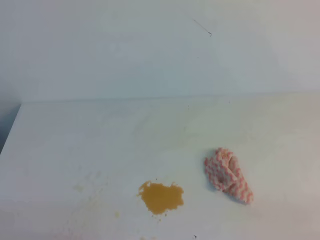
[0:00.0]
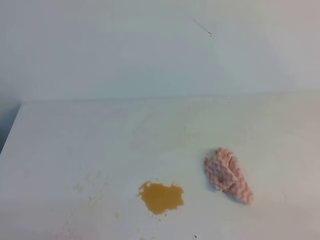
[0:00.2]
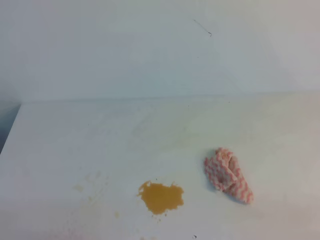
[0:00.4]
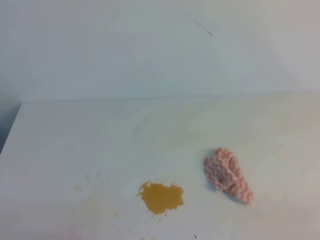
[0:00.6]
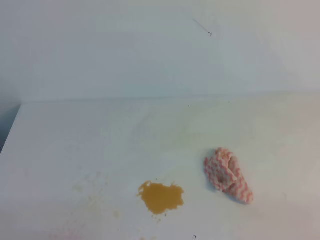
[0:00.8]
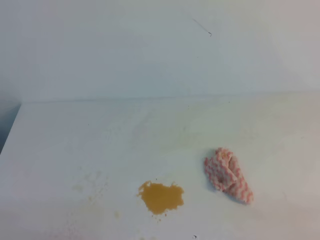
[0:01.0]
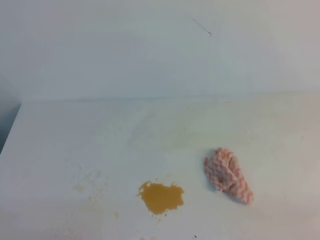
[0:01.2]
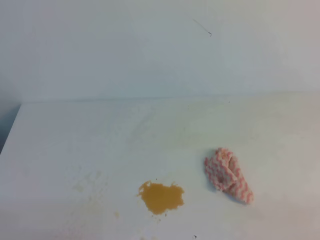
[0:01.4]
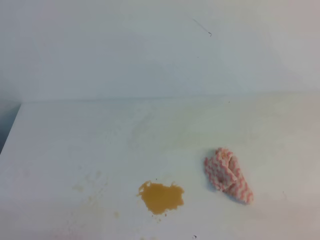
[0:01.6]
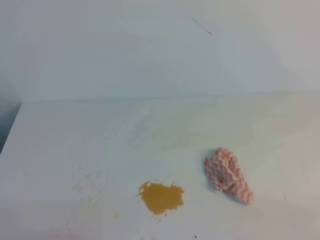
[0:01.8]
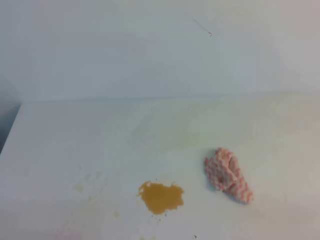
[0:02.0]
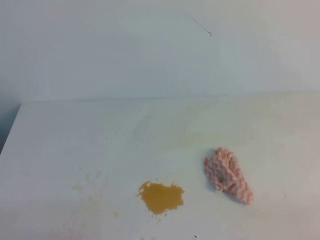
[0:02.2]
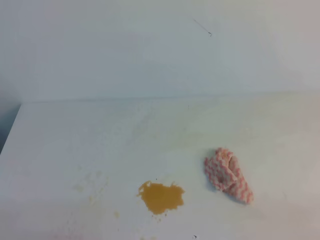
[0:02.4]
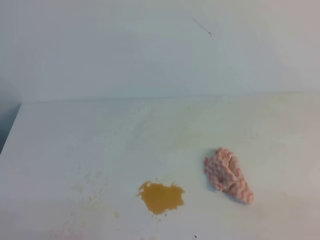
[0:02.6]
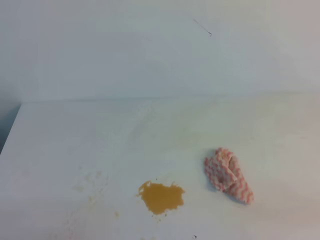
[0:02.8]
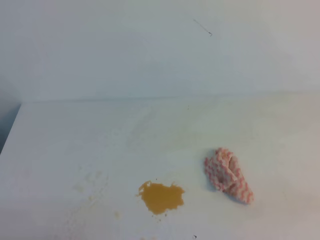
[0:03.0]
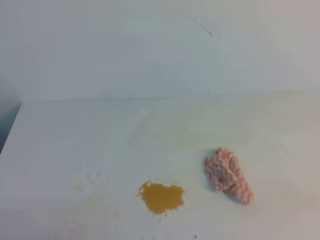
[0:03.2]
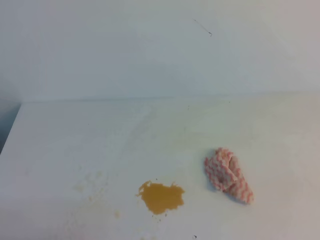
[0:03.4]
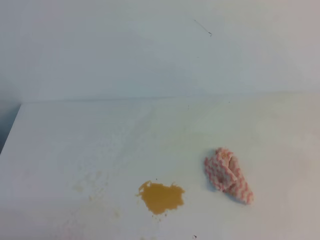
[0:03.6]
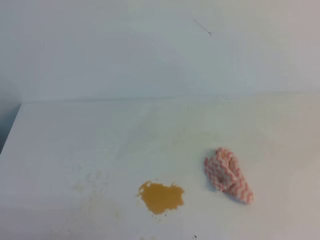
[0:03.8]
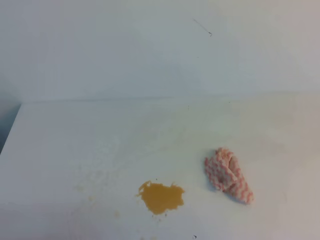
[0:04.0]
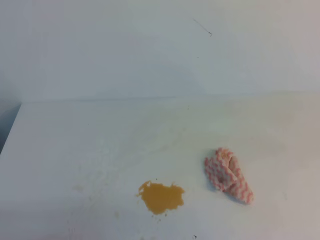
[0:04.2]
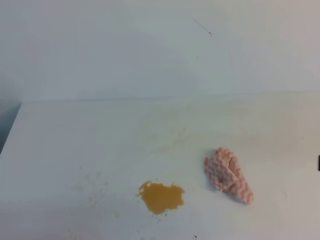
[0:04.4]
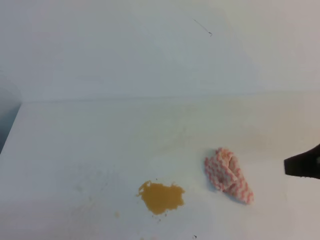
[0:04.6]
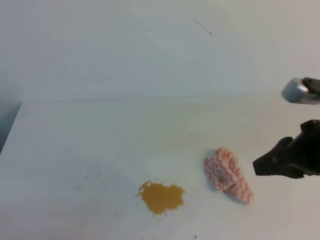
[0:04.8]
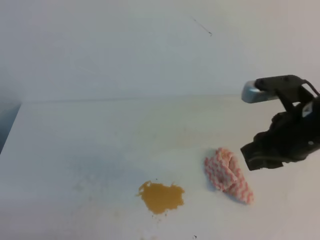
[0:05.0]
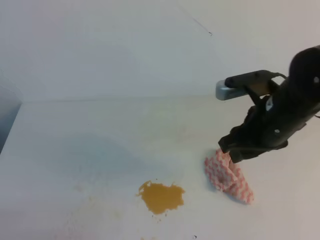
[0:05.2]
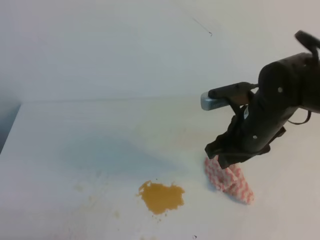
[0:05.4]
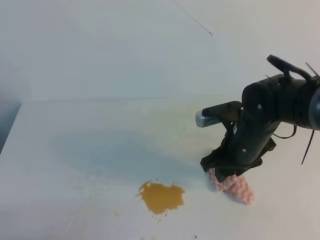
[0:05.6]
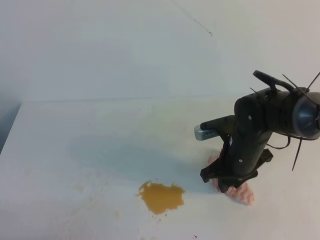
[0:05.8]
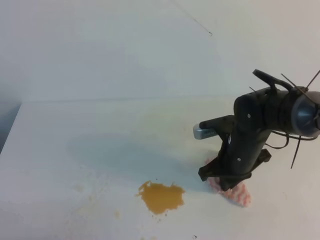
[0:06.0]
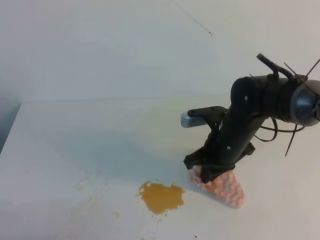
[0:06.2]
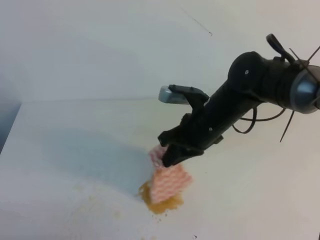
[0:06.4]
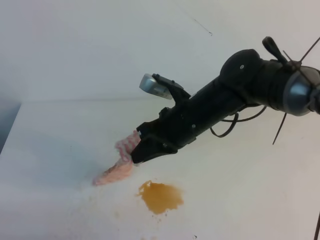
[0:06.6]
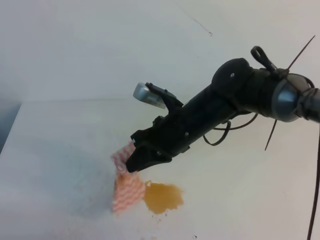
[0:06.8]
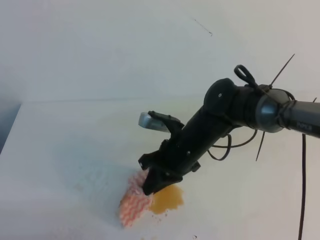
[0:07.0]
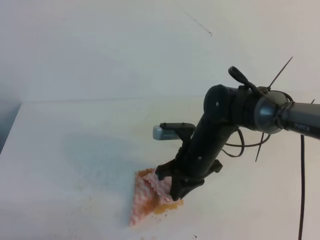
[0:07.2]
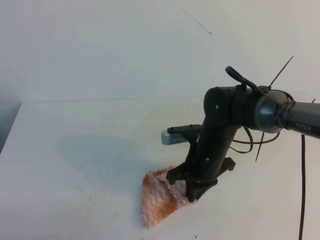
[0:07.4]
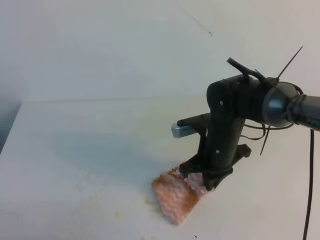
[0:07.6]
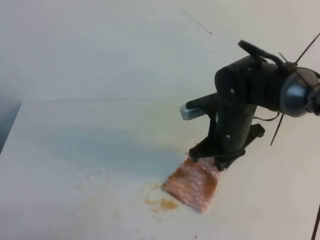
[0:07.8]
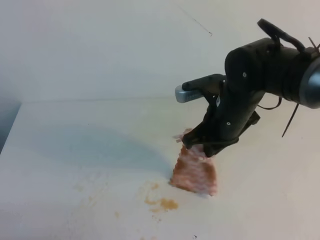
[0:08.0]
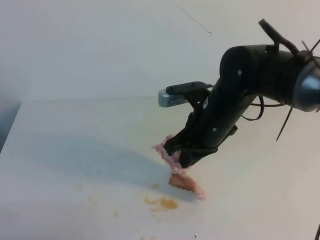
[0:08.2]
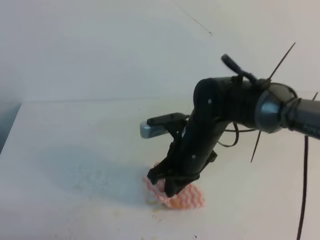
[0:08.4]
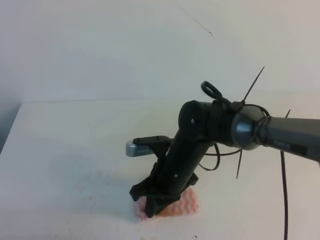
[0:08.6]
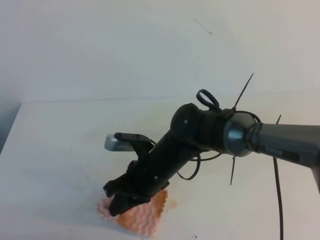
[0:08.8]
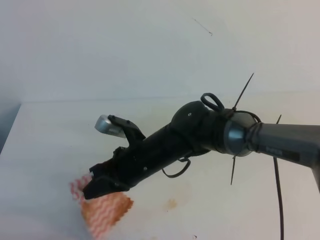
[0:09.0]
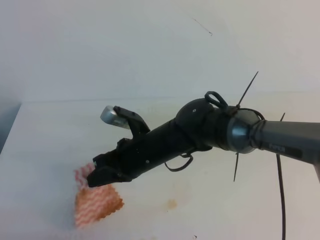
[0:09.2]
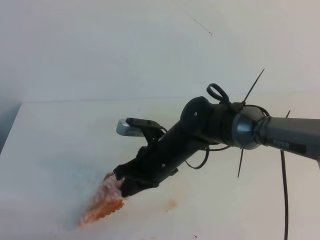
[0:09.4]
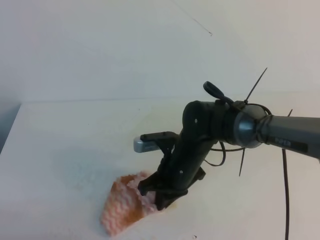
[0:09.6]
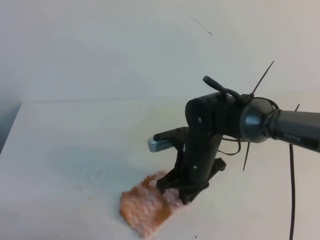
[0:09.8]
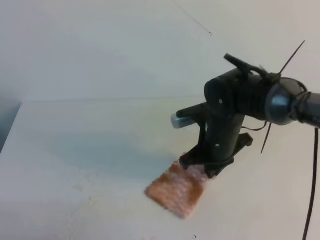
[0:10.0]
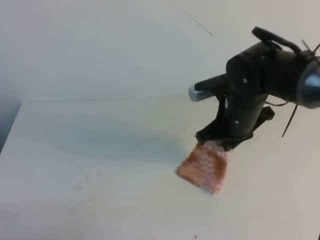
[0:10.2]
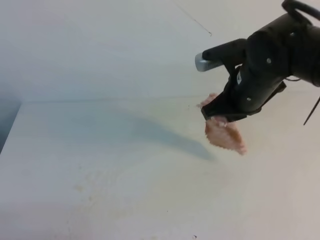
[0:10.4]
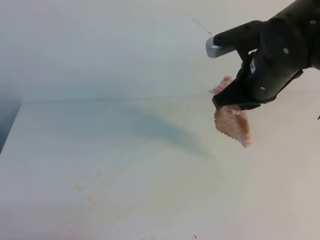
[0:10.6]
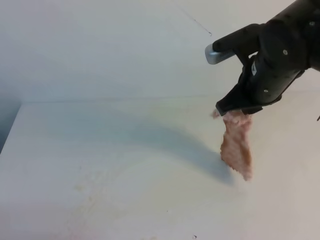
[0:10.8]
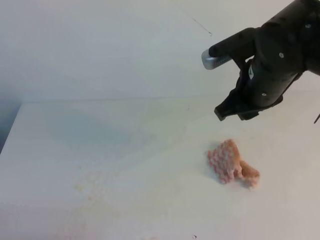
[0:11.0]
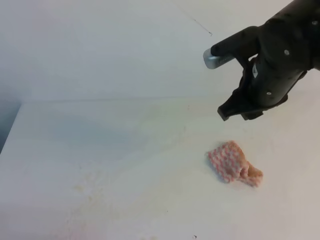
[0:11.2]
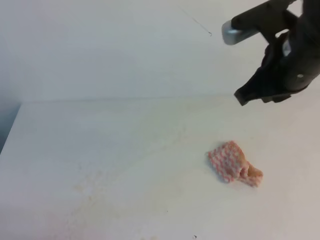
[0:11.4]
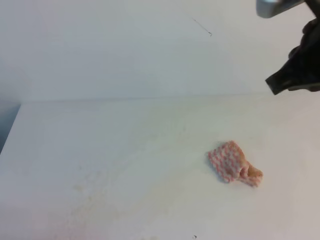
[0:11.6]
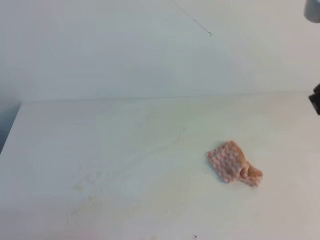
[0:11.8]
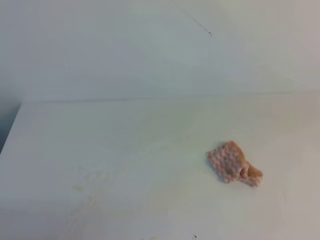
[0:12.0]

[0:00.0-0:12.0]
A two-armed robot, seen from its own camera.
0:00.0 to 0:01.6: Both grippers stay put.
0:04.4 to 0:06.0: The right gripper moves forward, to the left and downward, some 30 cm, and opens, then closes once more.
0:07.6 to 0:09.0: The right gripper is displaced to the left by approximately 10 cm.
0:09.0 to 0:10.4: The right gripper goes some 20 cm to the right and upward.
0:10.4 to 0:12.0: The right gripper travels backward, upward and to the right by roughly 25 cm, and opens and closes again.

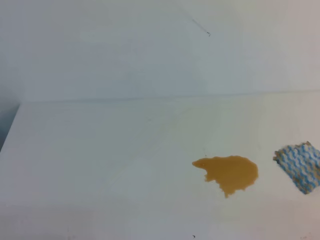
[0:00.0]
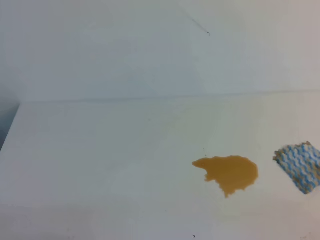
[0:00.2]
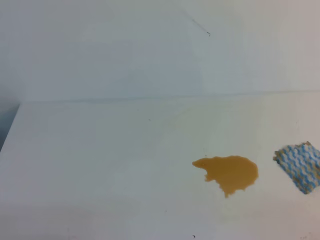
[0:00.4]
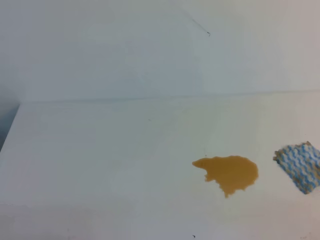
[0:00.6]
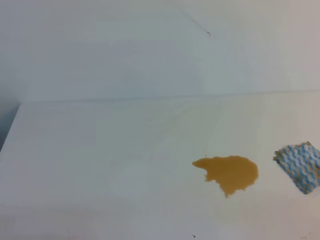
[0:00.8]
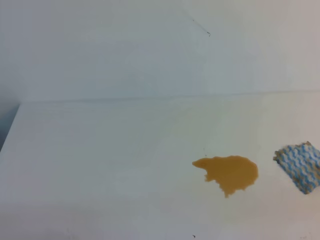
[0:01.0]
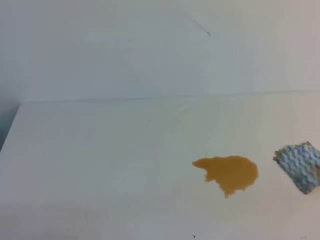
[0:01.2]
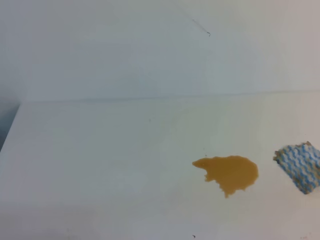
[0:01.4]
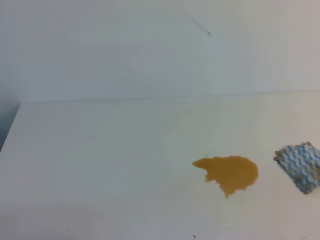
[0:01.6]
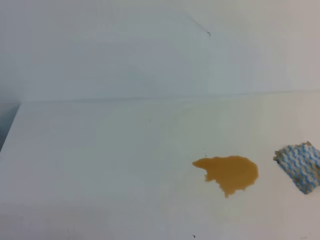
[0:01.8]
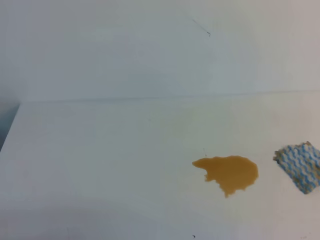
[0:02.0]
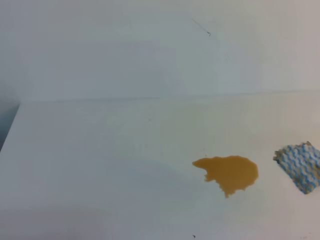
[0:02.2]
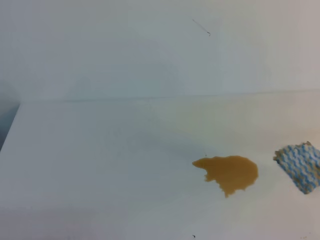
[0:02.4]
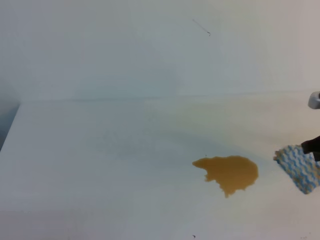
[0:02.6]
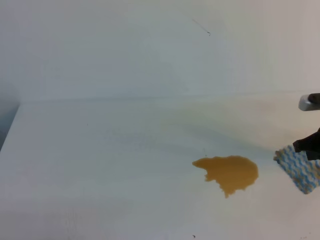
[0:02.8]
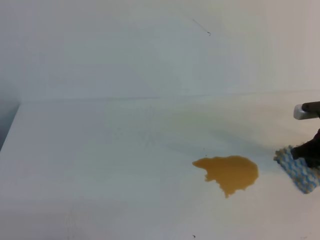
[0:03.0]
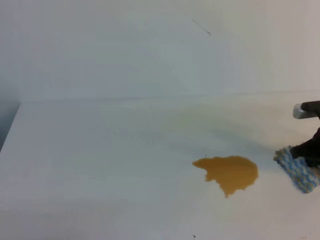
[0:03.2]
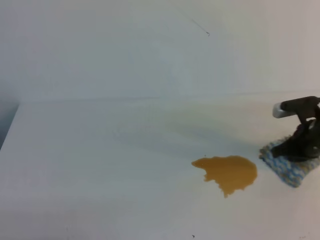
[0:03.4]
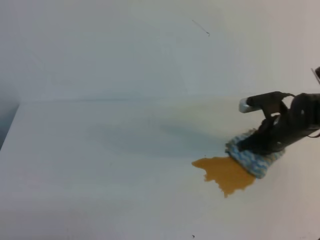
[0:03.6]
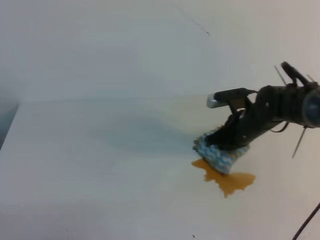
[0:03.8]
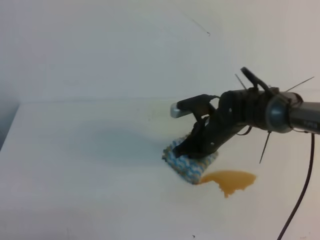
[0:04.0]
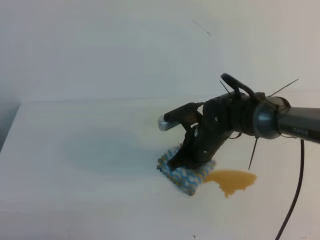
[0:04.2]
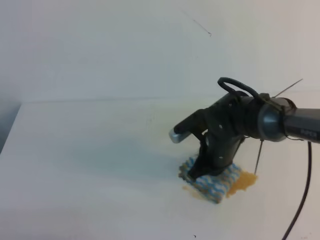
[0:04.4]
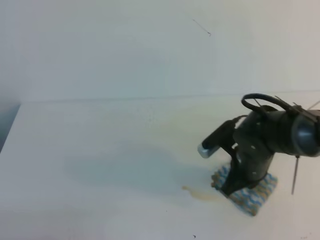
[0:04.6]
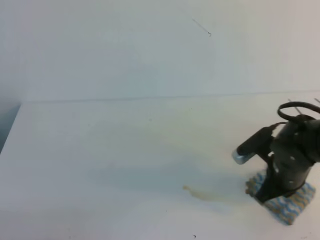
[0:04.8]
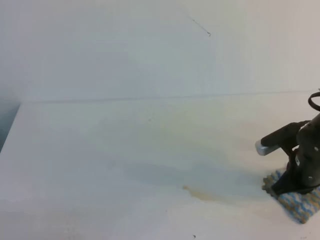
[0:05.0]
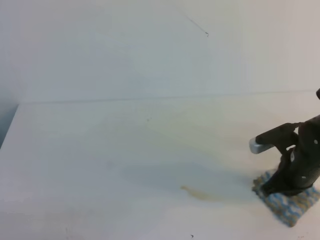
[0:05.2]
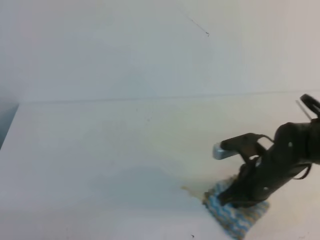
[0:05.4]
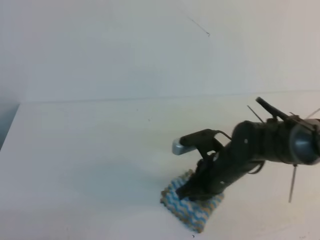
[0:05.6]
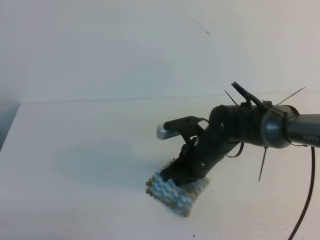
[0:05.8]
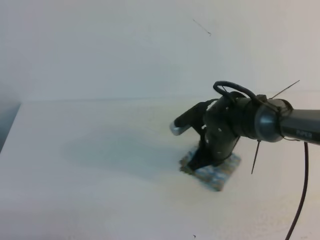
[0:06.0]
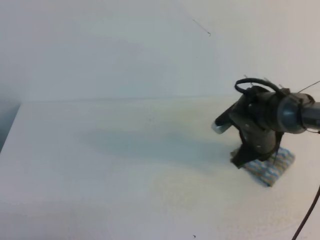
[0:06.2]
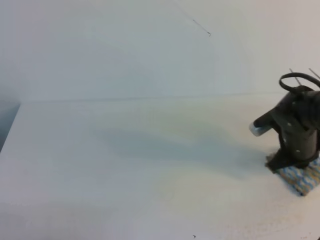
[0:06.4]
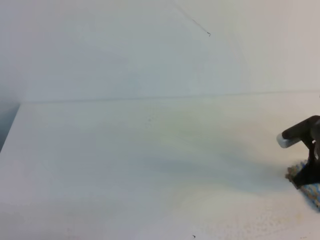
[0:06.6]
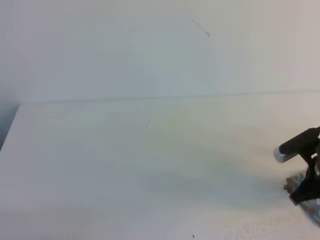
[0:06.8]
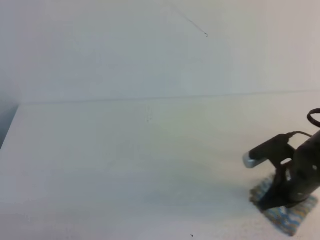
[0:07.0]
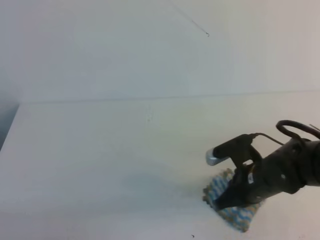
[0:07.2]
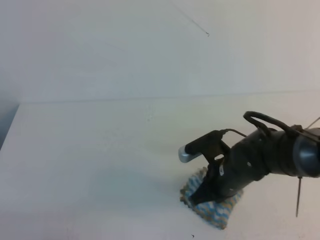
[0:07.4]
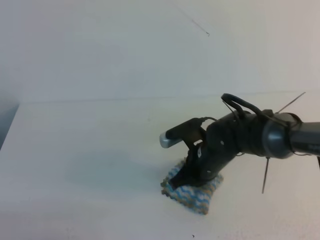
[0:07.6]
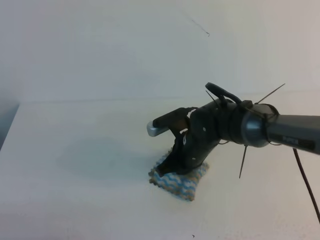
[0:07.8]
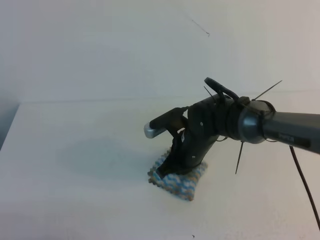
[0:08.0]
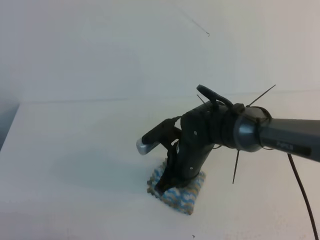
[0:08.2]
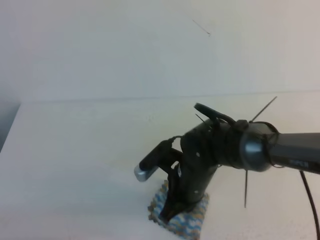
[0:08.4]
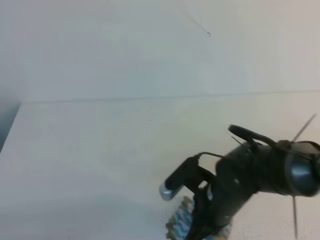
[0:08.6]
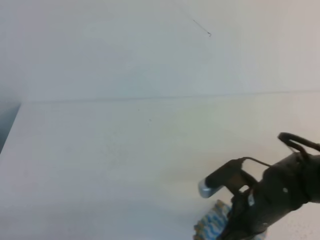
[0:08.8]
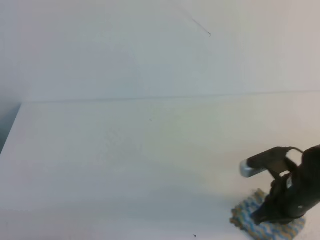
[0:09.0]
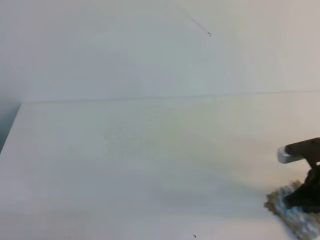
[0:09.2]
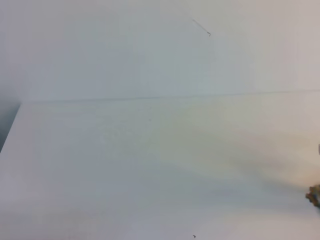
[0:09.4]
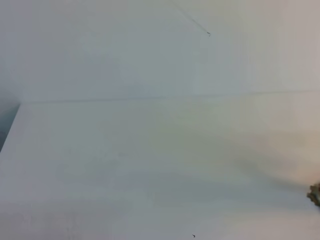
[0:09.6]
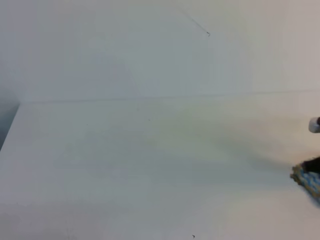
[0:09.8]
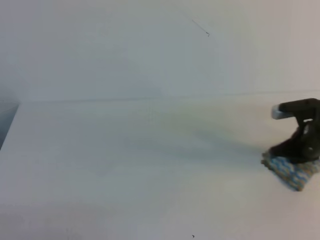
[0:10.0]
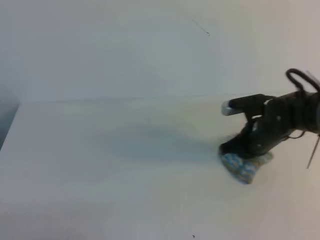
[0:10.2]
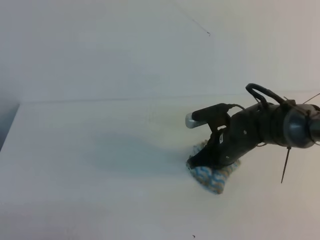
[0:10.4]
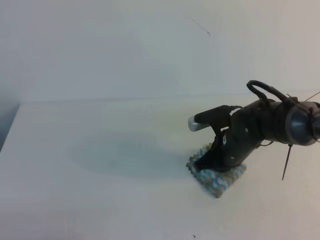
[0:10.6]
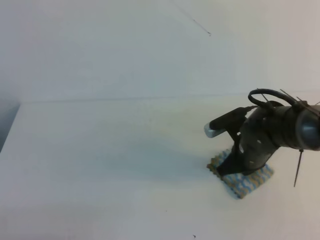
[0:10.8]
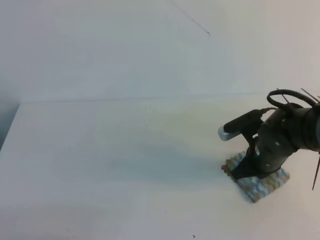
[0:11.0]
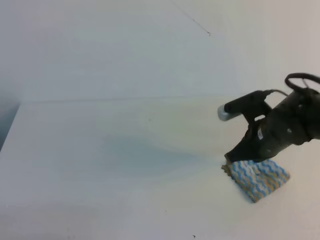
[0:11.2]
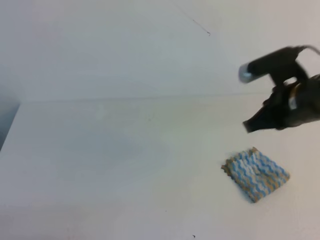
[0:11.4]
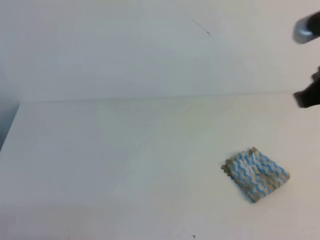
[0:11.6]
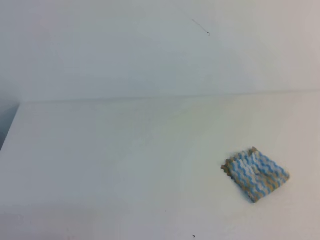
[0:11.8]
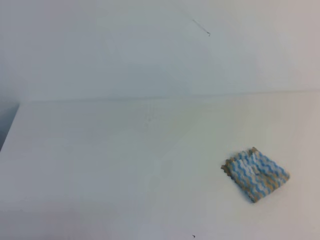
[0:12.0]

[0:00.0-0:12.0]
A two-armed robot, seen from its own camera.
0:01.6 to 0:03.0: The right gripper is displaced forward and downward by about 35 cm.
0:03.0 to 0:04.4: The right gripper travels to the left by approximately 20 cm.
0:04.4 to 0:06.0: The right gripper goes to the right and returns, about 15 cm each way, and opens up.
0:06.0 to 0:07.6: The right gripper goes to the right and returns, approximately 15 cm each way, and opens up.
0:07.6 to 0:09.0: The right gripper heads to the right and backward, covering about 15 cm.
0:09.0 to 0:10.4: The right gripper shifts roughly 10 cm forward, and travels to the right and back again, some 15 cm each way.
0:10.4 to 0:12.0: The right gripper goes approximately 40 cm upward, backward and to the right, and closes its fingers.
